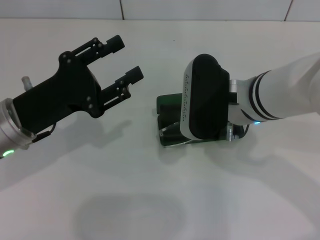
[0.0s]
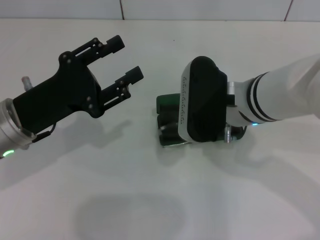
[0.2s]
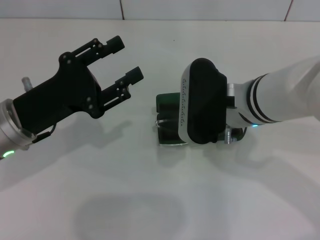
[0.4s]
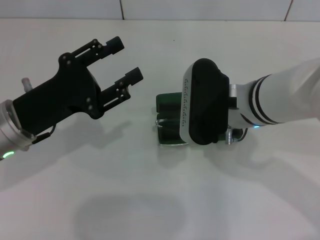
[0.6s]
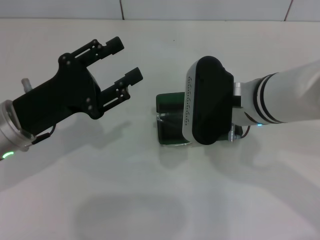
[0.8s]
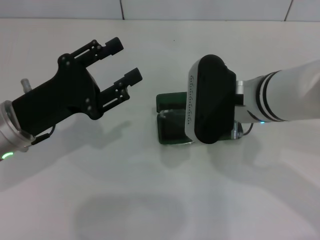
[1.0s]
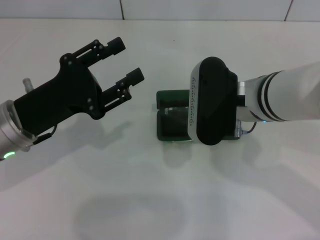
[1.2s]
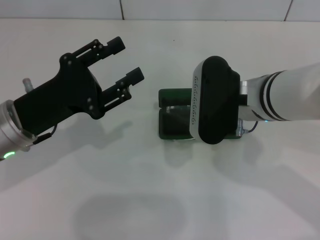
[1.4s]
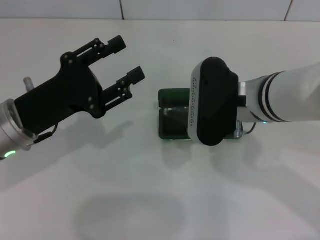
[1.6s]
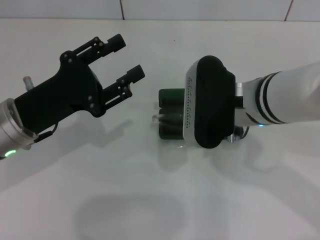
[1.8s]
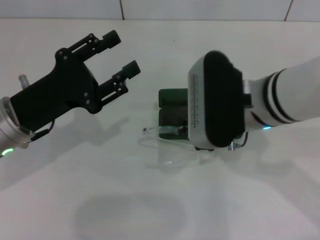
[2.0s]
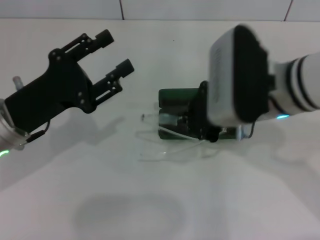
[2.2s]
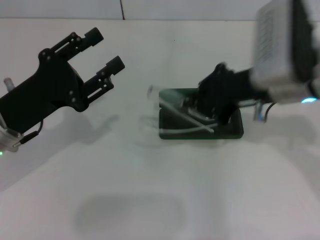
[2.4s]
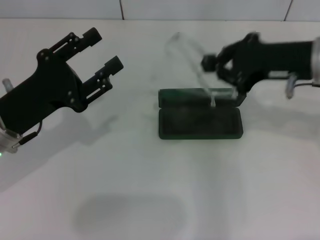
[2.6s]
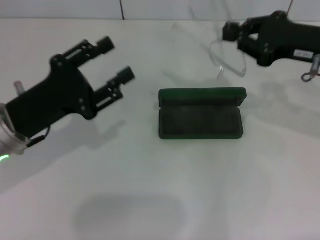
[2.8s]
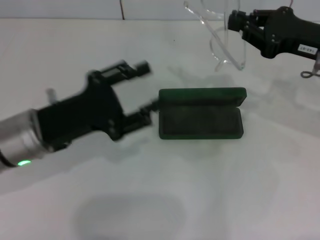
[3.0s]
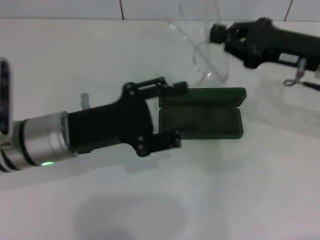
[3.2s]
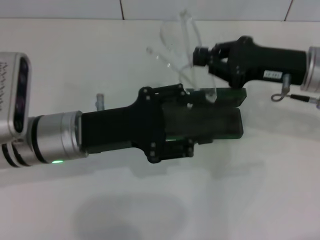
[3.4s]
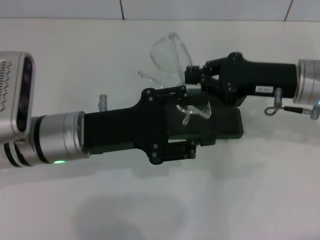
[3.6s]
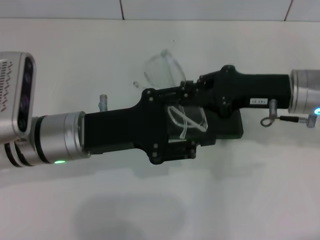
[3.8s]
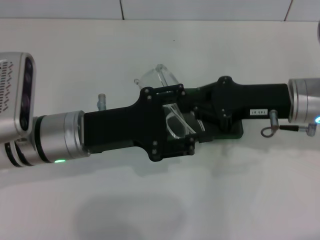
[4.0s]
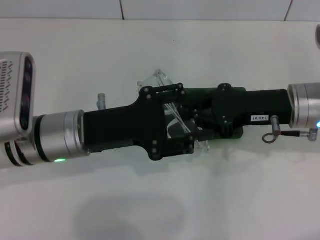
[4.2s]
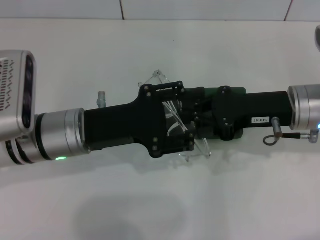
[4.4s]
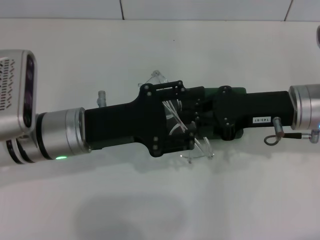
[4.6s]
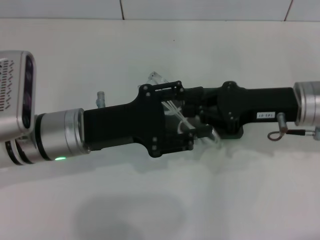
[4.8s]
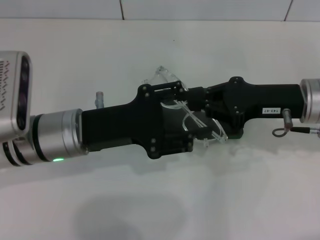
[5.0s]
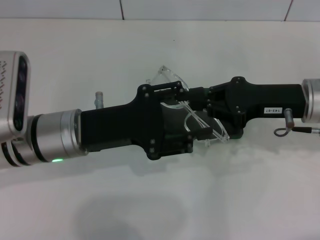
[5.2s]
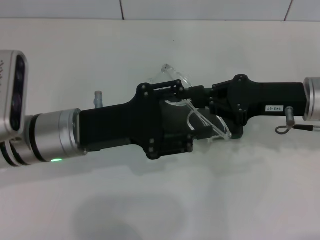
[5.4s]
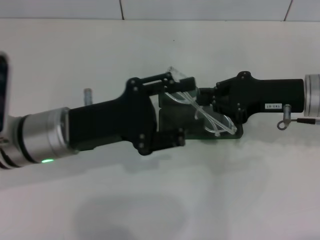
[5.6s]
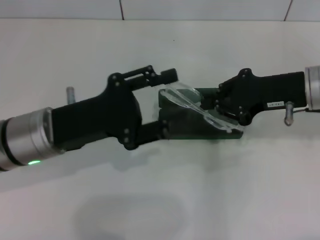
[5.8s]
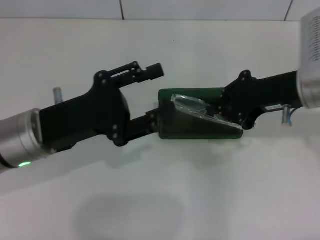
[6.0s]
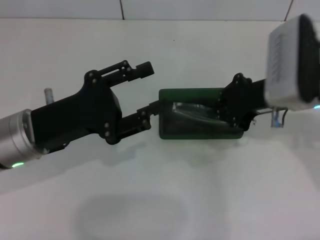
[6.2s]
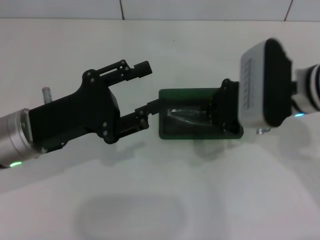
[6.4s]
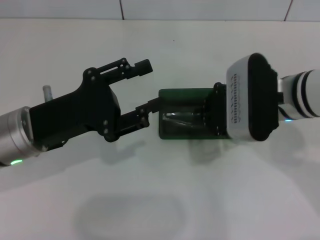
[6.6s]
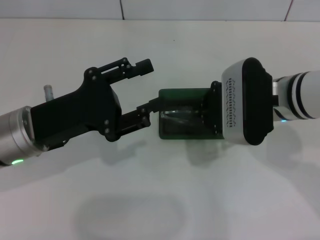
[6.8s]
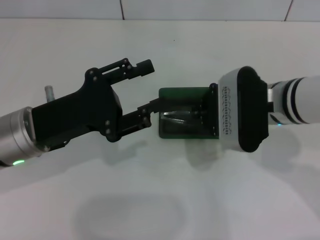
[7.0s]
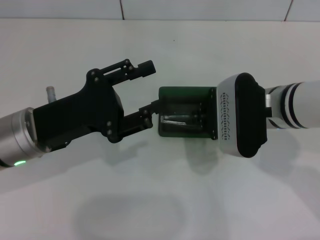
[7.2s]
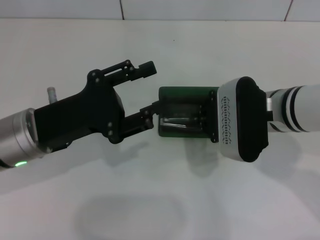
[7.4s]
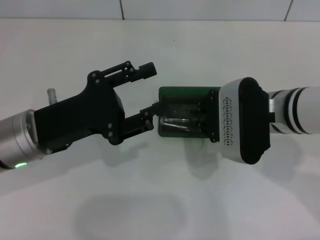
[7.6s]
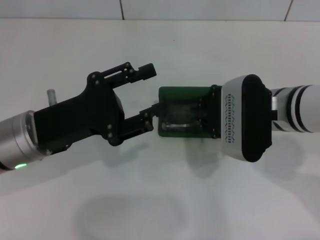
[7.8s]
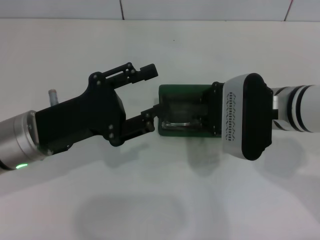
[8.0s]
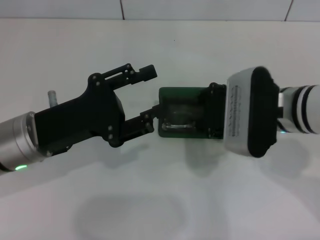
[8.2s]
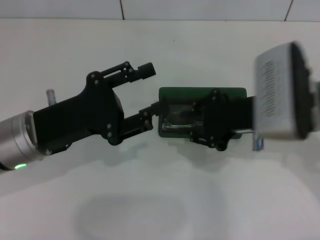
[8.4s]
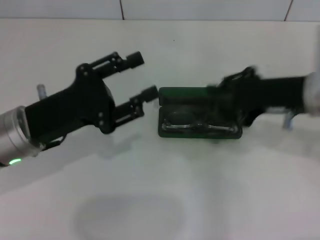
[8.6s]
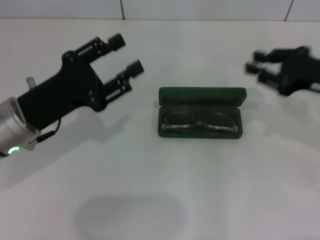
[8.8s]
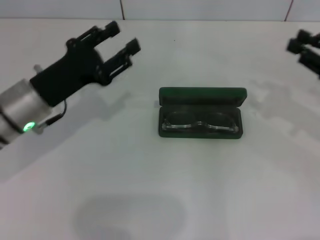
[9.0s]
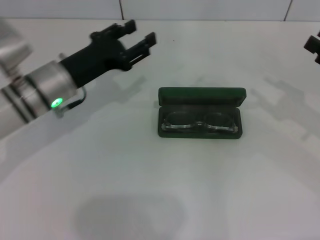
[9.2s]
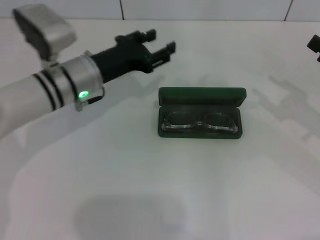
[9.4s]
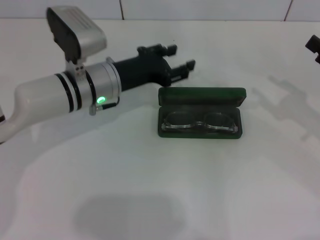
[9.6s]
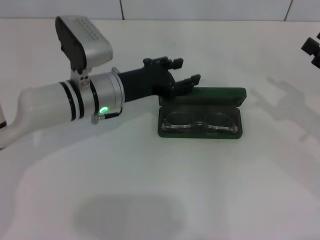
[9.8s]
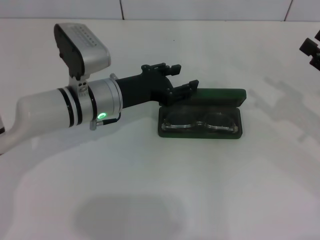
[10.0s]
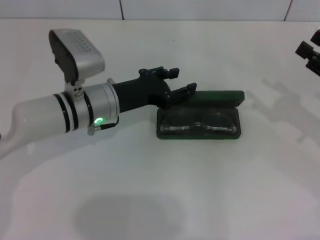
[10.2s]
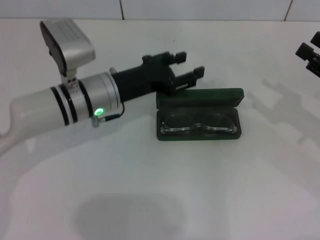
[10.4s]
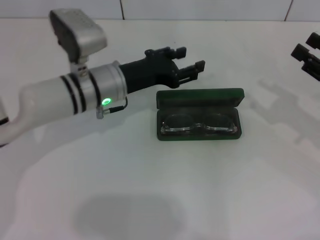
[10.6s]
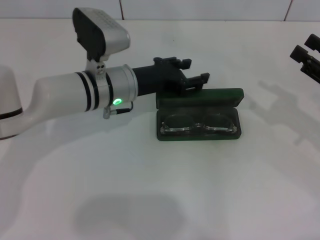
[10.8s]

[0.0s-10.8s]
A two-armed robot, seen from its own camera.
Step, 0.4s to 4.8s: Fold the frame with your left hand.
Step, 5.0s to 8.0s: Put the glasses into the case with your right hand.
0.0s to 1.6s: There are only small adjustments of the grippers.
1.6s to 3.0s: The right gripper moves to the right, approximately 15 cm.
3.0s to 4.6s: The right gripper travels to the left by about 5 cm. Meanwhile the left gripper shifts approximately 5 cm to the right.
4.6s to 6.2s: The left gripper ends up approximately 5 cm from where it was.
6.2s to 7.8s: The right gripper ends up roughly 5 cm from where it was.
7.8s to 9.2s: The left gripper goes some 10 cm forward. Meanwhile the right gripper heads to the right, covering roughly 20 cm, and opens.
9.2s to 10.8s: The right gripper opens. The left gripper moves to the right, roughly 10 cm.

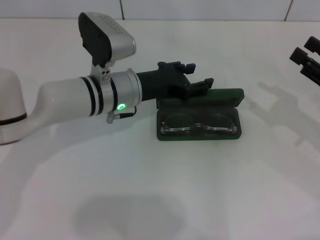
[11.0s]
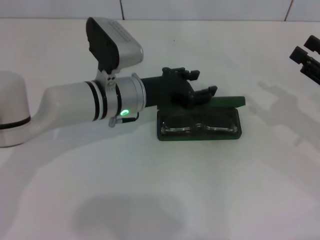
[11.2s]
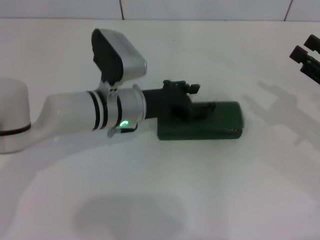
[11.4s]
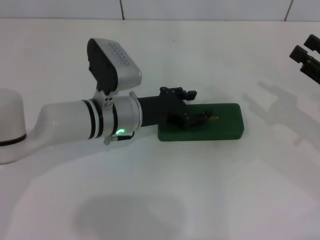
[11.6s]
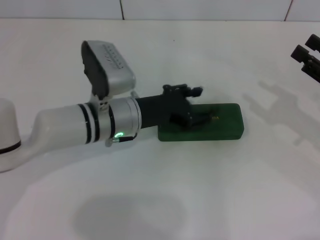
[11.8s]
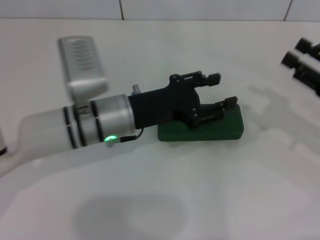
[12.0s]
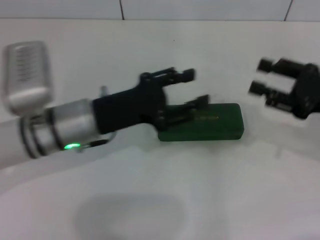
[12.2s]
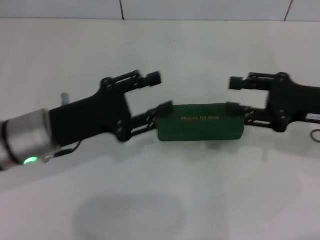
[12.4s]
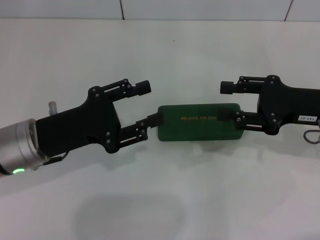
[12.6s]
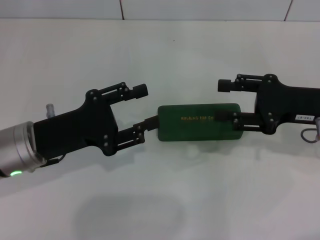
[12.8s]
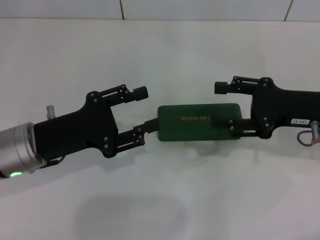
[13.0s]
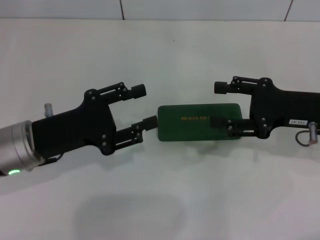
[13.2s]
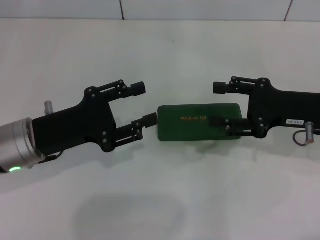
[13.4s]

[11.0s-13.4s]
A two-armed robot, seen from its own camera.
11.0s to 12.2s: The left gripper heads backward and to the left, covering approximately 10 cm.
12.2s to 13.4s: The right gripper ends up roughly 5 cm from where it was. Meanwhile the left gripper moves to the left, roughly 5 cm.

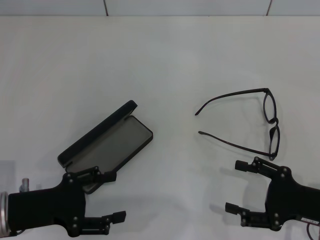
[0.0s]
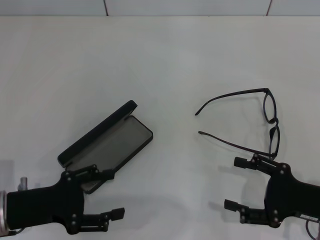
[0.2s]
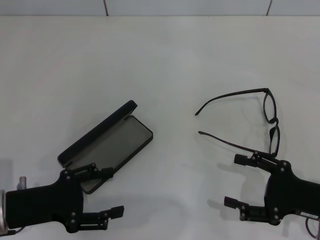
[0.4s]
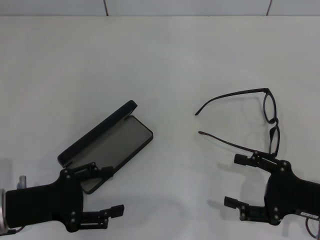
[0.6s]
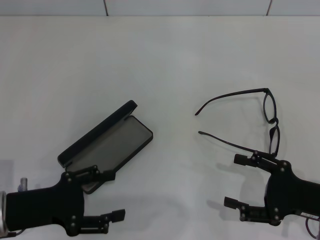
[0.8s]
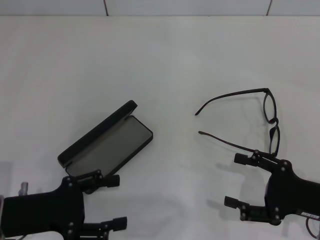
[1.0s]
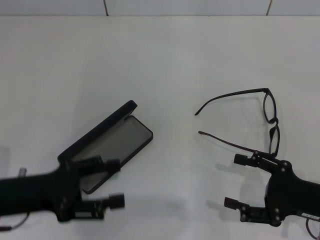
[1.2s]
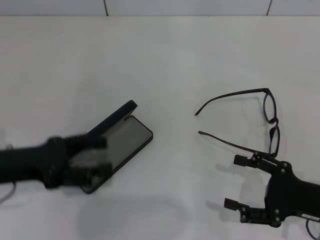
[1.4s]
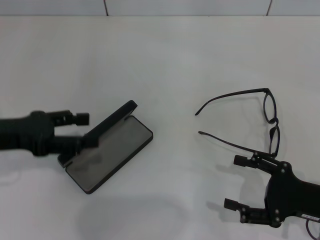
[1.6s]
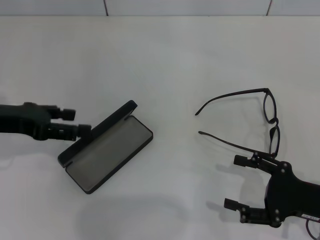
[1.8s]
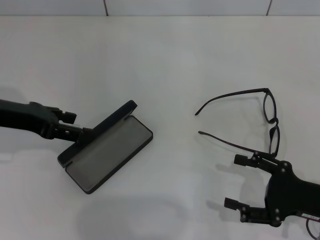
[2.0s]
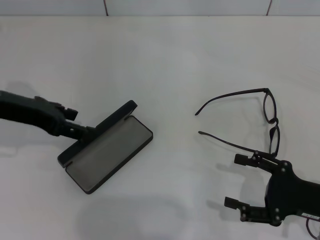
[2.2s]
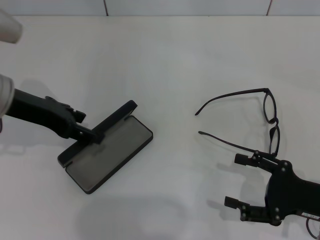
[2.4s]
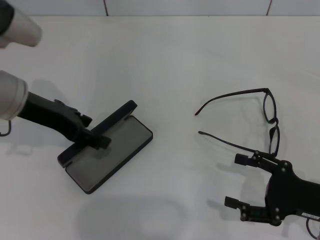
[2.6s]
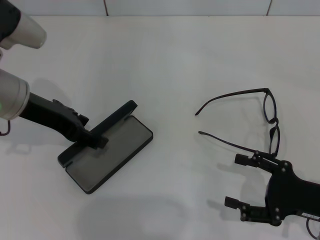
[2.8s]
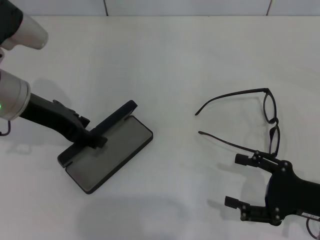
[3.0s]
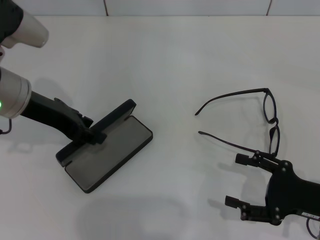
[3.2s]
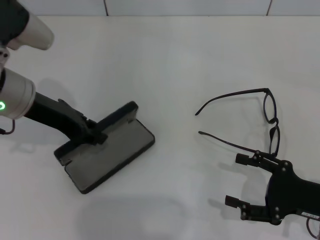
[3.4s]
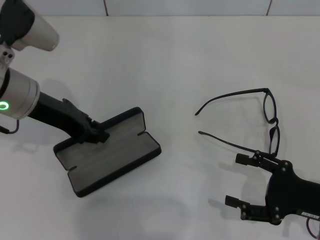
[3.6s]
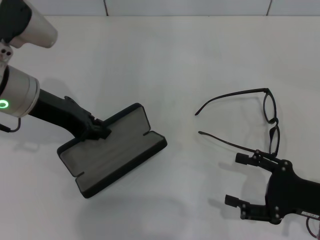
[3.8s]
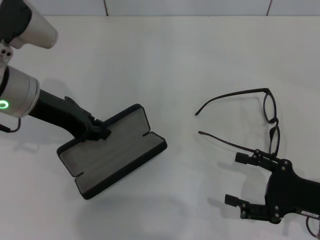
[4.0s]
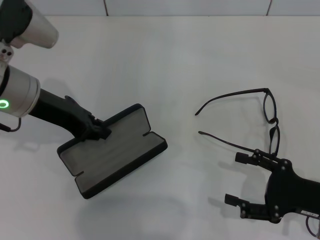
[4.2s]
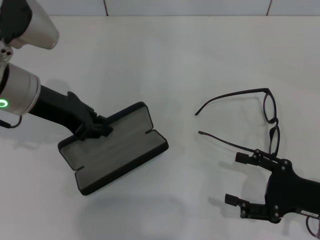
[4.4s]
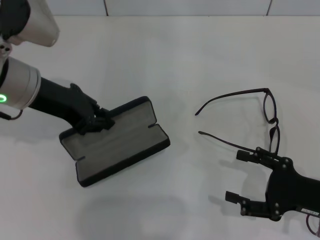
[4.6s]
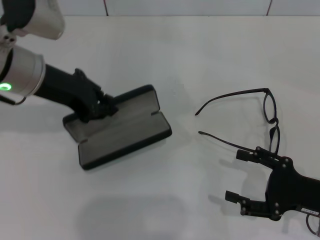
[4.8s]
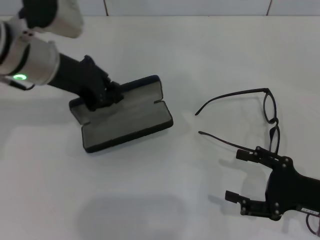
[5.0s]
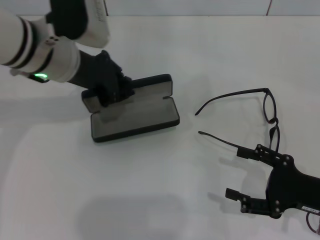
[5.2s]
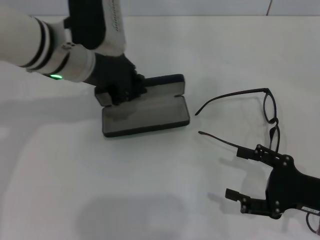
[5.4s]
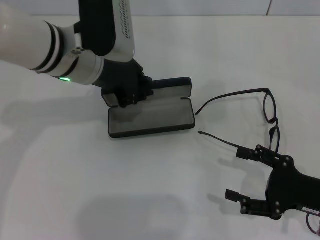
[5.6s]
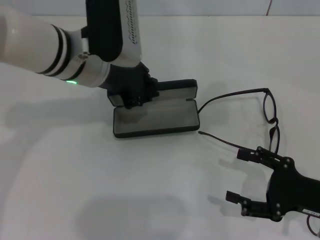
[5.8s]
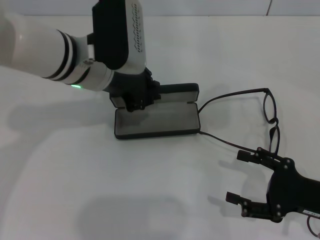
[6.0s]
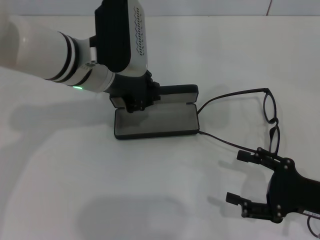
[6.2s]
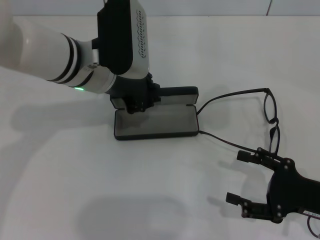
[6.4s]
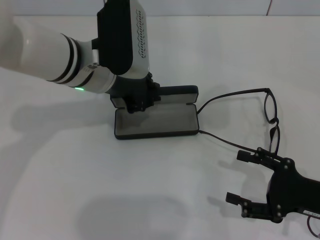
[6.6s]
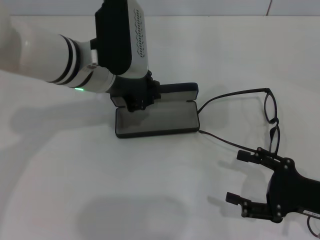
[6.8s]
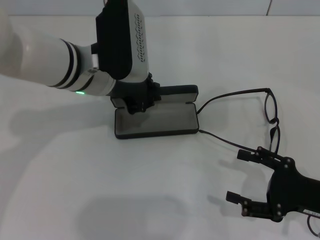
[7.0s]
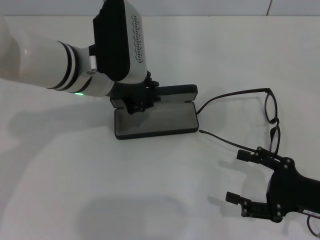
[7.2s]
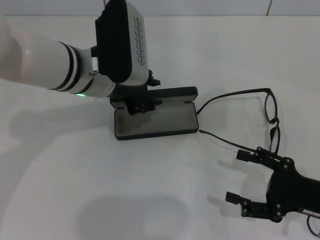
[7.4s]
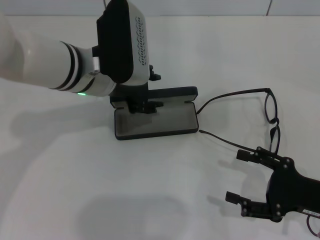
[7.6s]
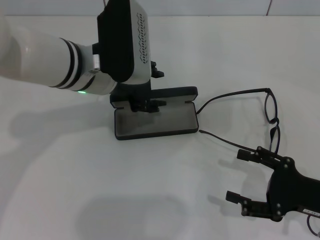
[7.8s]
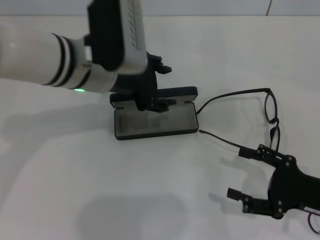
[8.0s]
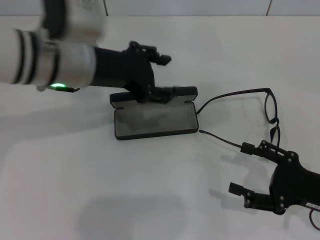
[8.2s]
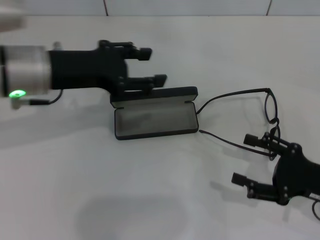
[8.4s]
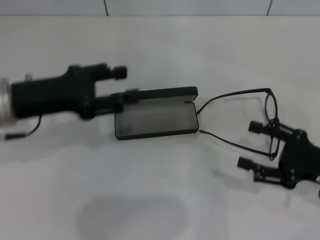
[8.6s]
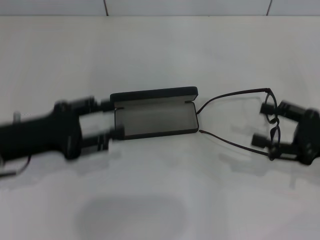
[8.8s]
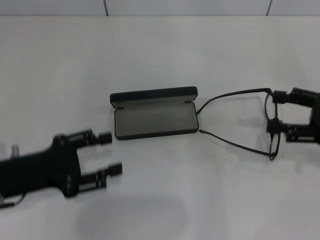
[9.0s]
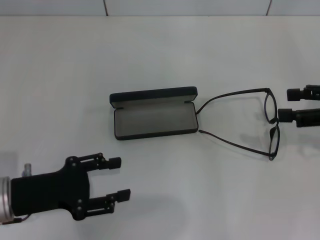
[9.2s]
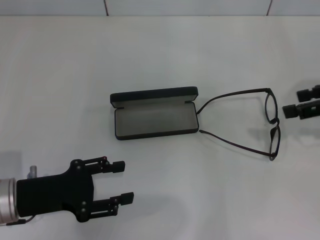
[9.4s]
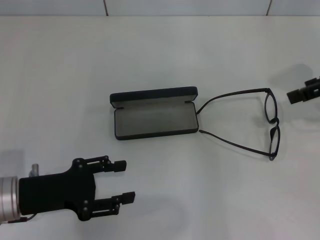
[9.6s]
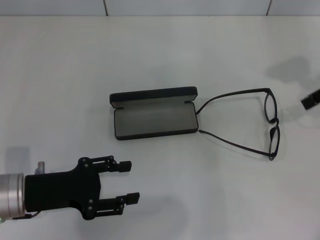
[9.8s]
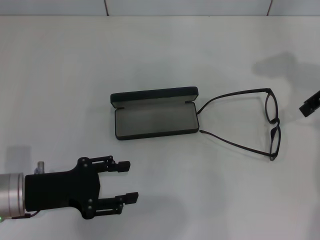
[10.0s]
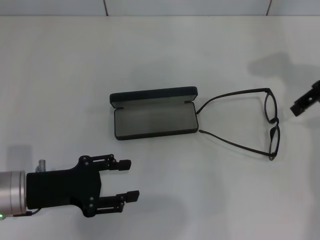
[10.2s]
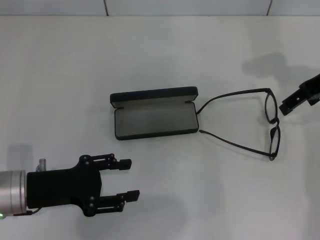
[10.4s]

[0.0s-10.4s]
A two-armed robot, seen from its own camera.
Step, 0.0s to 3.6s: Grab the glasses case with your left hand.
Step, 3.8s to 7.2s: Place the glasses case in the center of the table with your left hand.
0.0s to 1.4s: The left gripper is displaced upward by about 5 cm.
1.4s to 3.0s: The left gripper goes some 10 cm forward and upward.
3.0s to 4.4s: The left gripper closes up.
4.4s to 6.0s: The left gripper heads to the right, covering approximately 10 cm.
6.0s to 7.4s: Both grippers stay about where they are.
7.4s to 9.0s: The left gripper heads to the left, backward and downward, covering some 20 cm, and opens up. Meanwhile the right gripper moves upward and forward, about 10 cm.
9.0s to 10.4s: The right gripper shifts roughly 15 cm forward, upward and to the left.
